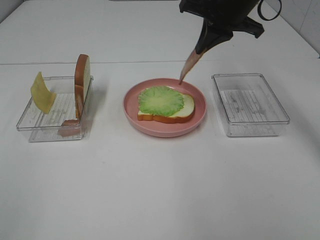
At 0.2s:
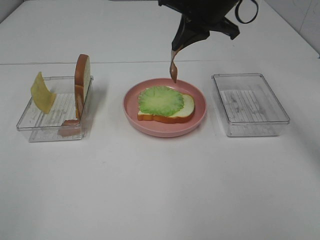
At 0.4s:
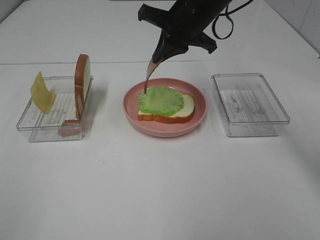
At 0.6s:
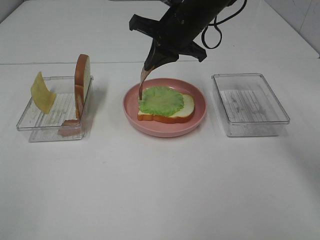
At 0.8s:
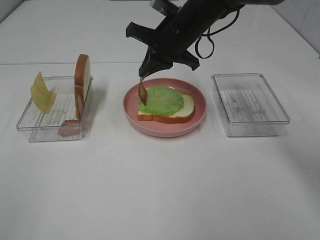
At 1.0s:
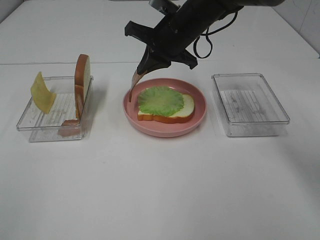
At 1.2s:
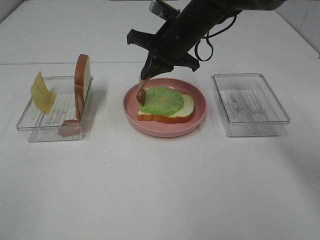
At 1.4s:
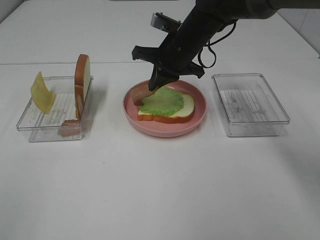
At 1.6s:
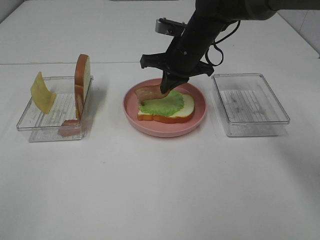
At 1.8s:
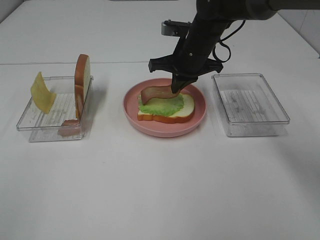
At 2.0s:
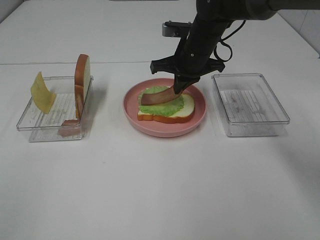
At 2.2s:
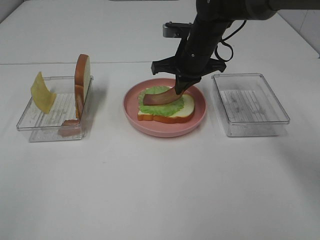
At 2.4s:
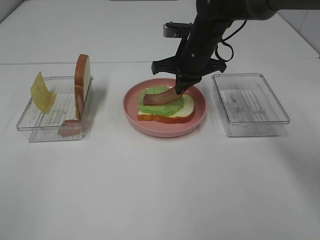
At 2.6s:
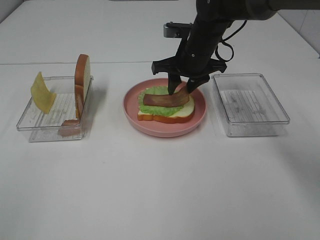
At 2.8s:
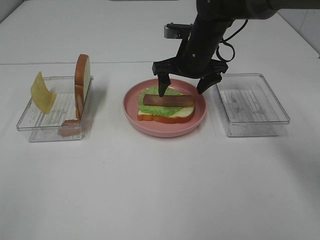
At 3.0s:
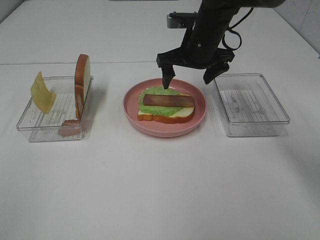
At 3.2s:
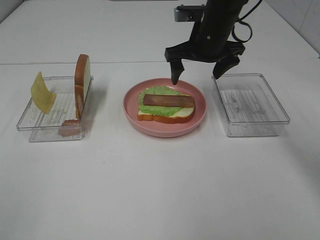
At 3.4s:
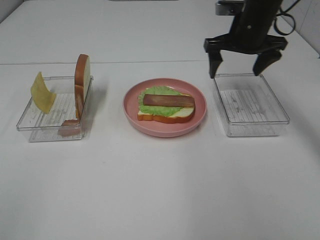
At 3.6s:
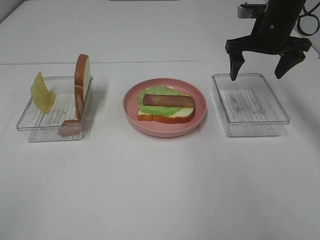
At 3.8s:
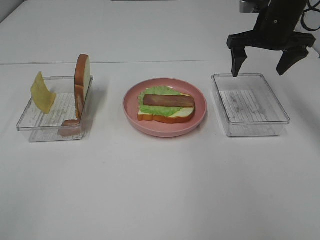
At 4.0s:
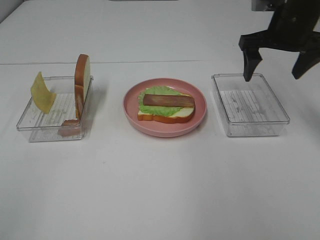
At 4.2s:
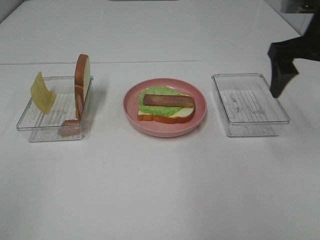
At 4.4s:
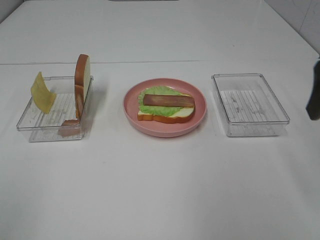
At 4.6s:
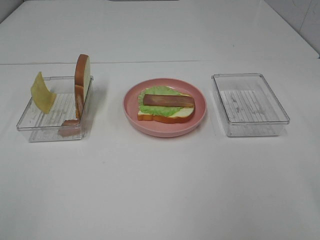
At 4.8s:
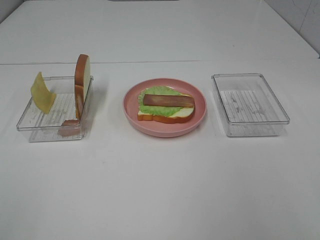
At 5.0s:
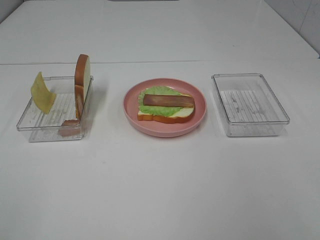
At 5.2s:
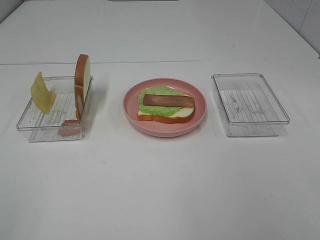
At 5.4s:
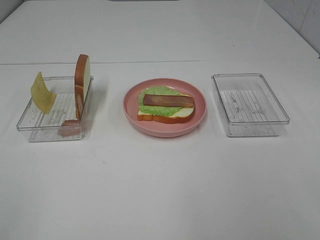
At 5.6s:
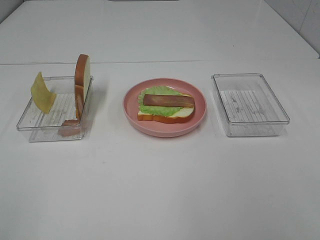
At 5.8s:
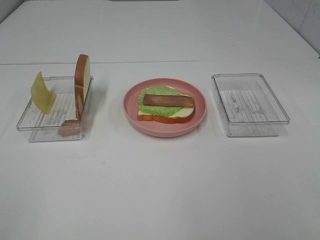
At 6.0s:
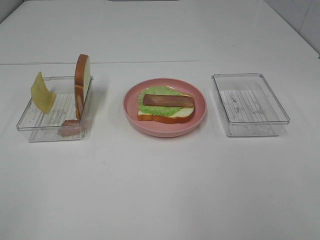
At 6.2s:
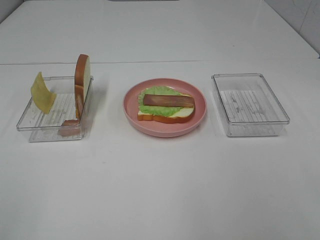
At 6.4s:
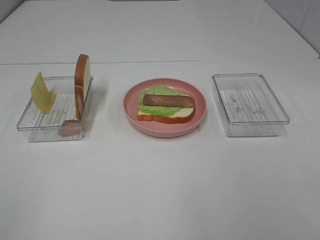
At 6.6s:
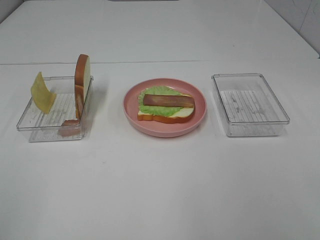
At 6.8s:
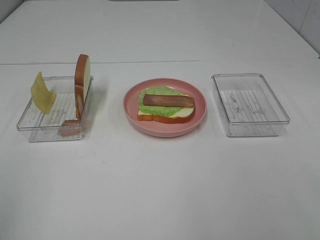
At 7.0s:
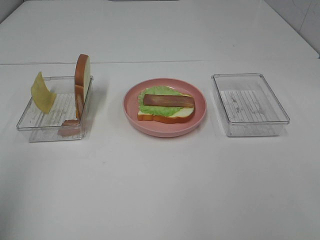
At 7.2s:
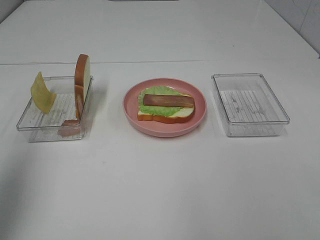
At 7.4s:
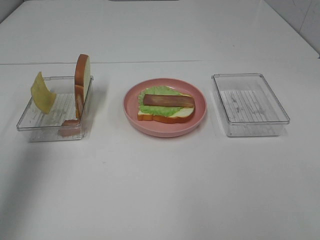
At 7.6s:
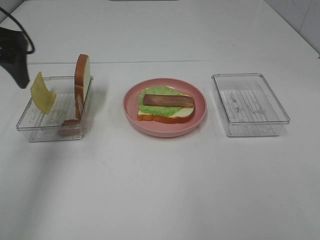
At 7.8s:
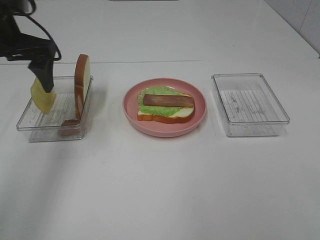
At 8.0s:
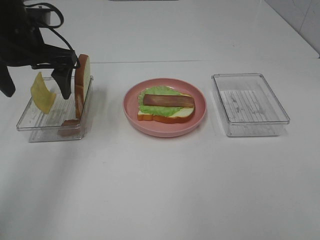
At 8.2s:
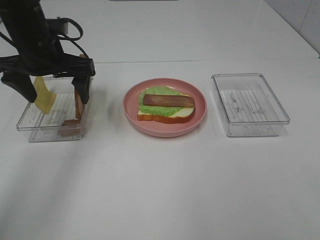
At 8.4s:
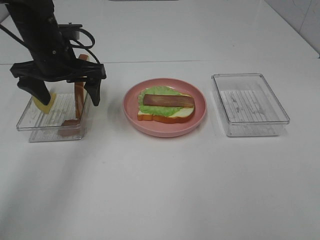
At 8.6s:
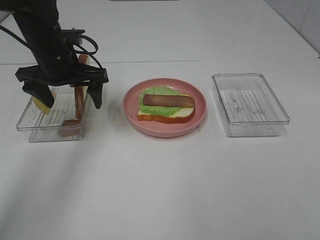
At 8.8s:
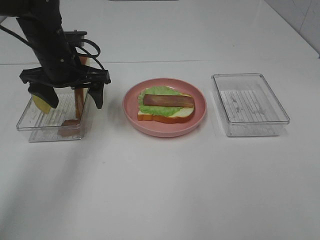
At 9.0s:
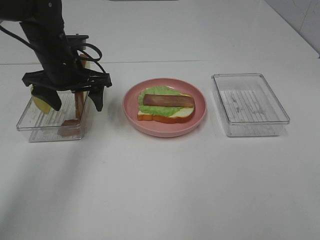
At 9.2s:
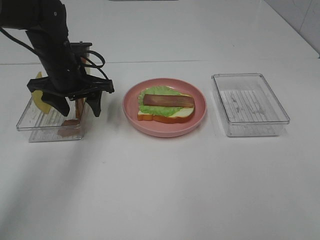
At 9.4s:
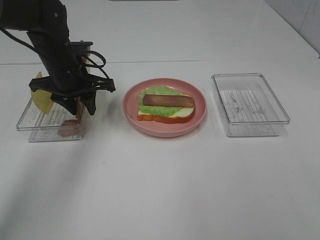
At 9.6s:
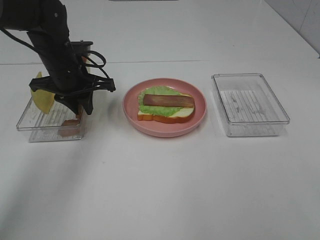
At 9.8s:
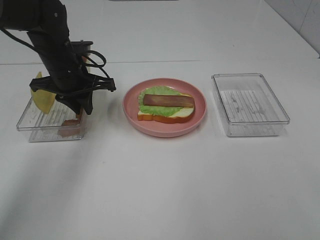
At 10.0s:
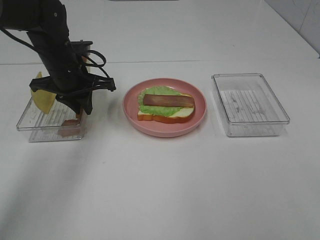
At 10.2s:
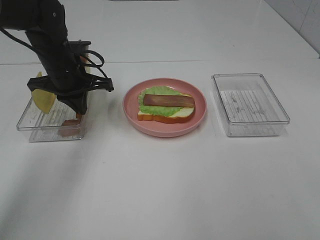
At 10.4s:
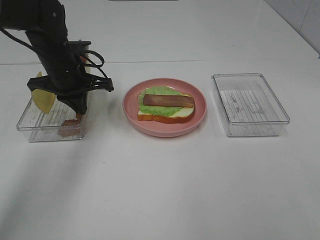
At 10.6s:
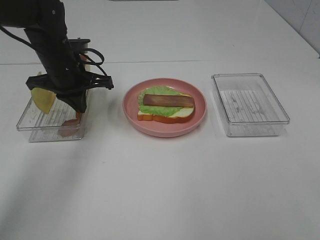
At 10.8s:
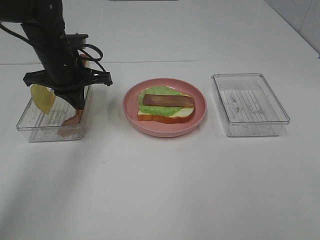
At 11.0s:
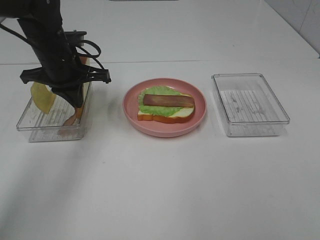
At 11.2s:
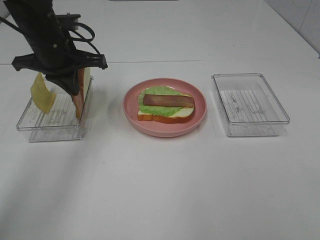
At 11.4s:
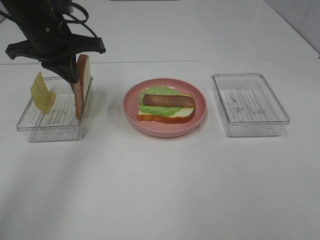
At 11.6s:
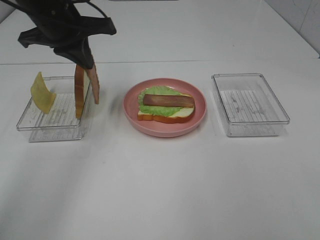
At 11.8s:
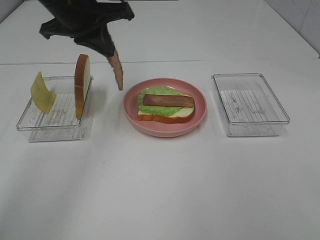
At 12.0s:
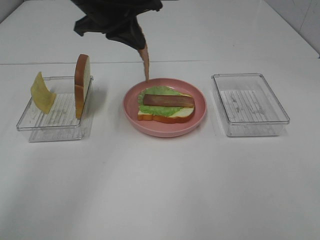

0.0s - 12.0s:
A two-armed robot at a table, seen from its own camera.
Task of the whole recording: Make sandwiches.
Step, 0.0s - 2.6s: Right hand:place bacon on lettuce slice.
Step, 2.8s - 10.8s: Left hand:grab the bacon.
0.0s - 1.6s: The right gripper shifts roughly 10 cm downward and to the left.
1.6s - 3.0s: The right gripper opens.
3.0s - 4.4s: The right gripper shifts about 30 cm backward, to the right and upward.
4.4s - 6.0s: The right gripper shifts roughly 20 cm backward.
6.0s - 7.6s: The left gripper travels forward by roughly 35 cm.
7.6s - 9.0s: The left gripper shifts roughly 15 cm downward, to the right and forward.
9.0s - 10.4s: The left gripper closes up.
10.4s - 12.0s: The left gripper shifts approximately 15 cm upward and to the right.

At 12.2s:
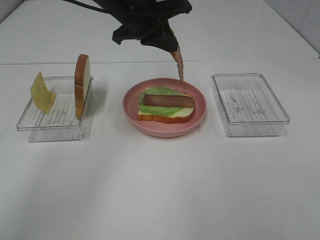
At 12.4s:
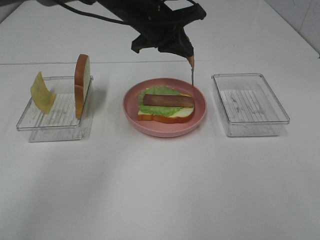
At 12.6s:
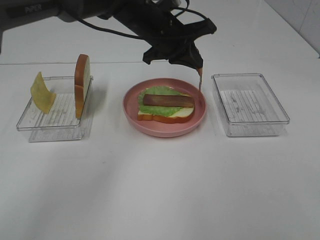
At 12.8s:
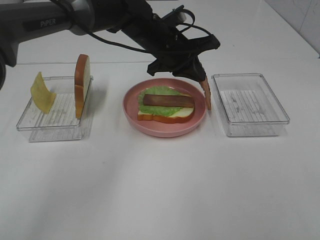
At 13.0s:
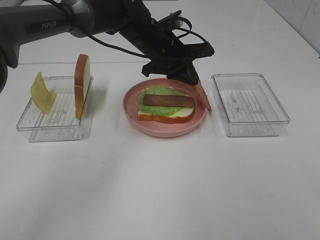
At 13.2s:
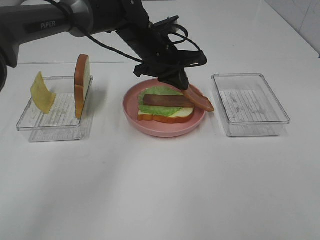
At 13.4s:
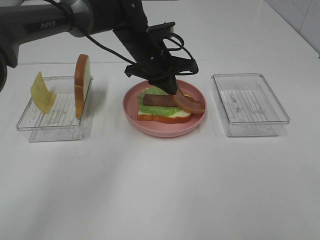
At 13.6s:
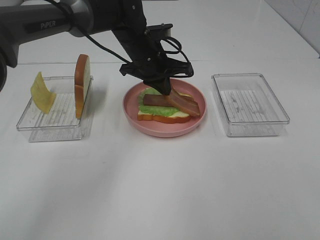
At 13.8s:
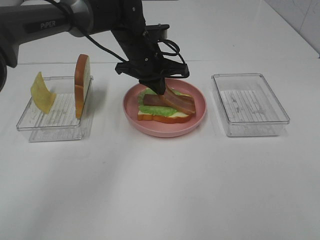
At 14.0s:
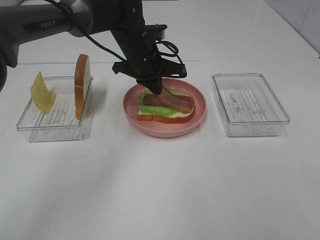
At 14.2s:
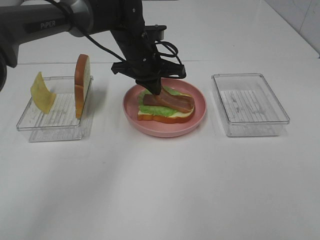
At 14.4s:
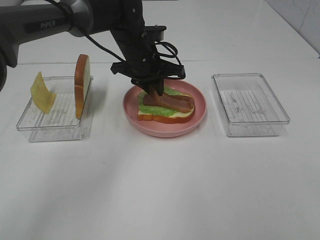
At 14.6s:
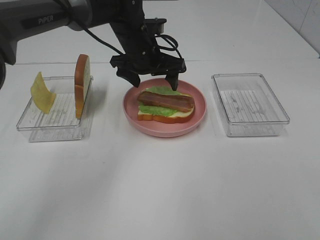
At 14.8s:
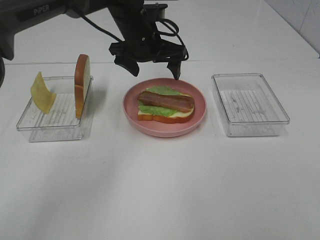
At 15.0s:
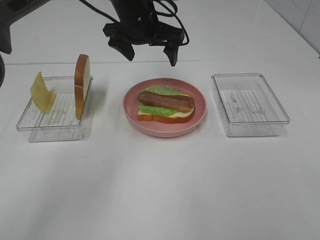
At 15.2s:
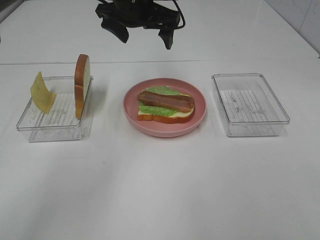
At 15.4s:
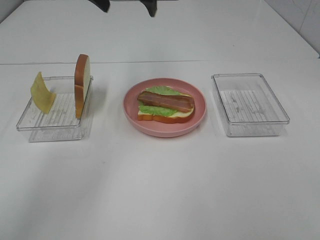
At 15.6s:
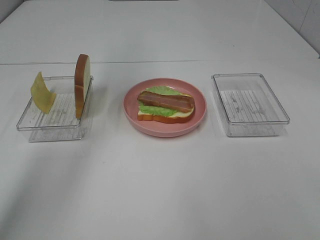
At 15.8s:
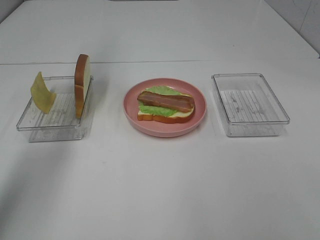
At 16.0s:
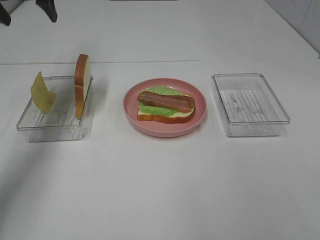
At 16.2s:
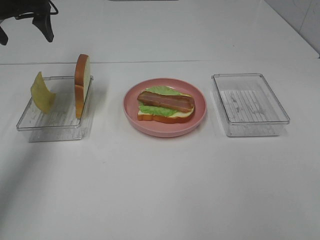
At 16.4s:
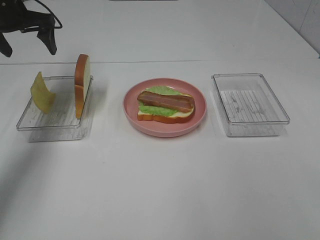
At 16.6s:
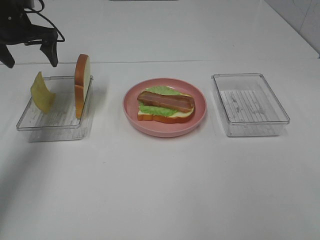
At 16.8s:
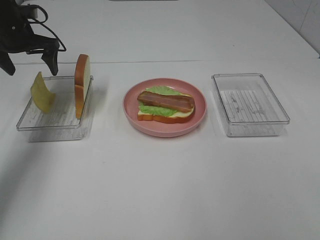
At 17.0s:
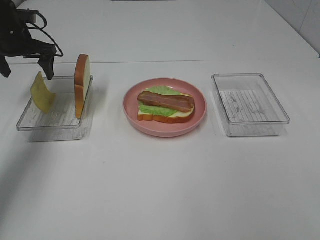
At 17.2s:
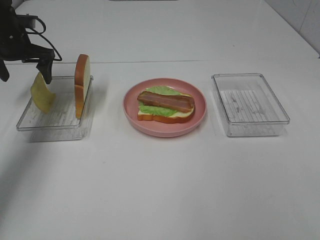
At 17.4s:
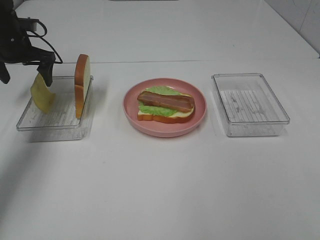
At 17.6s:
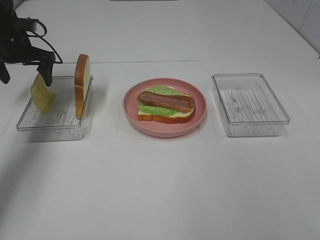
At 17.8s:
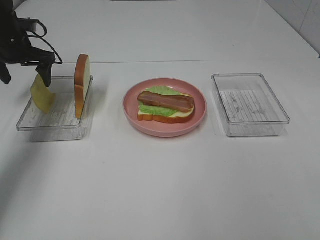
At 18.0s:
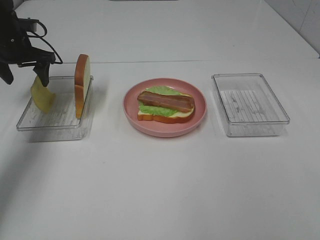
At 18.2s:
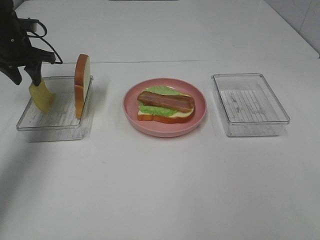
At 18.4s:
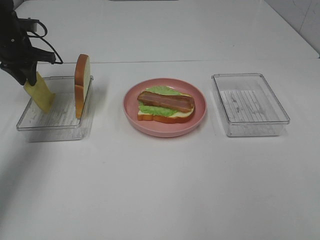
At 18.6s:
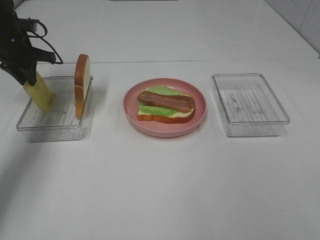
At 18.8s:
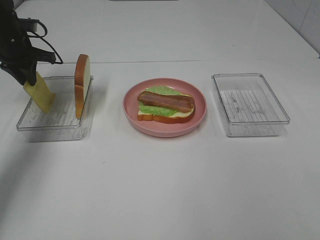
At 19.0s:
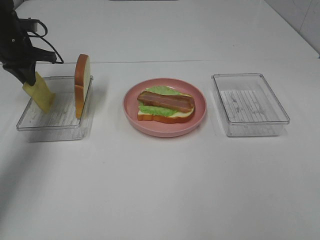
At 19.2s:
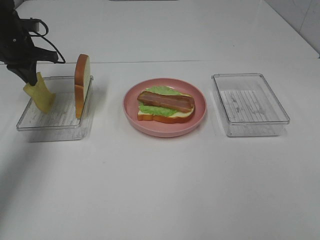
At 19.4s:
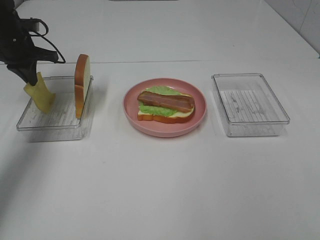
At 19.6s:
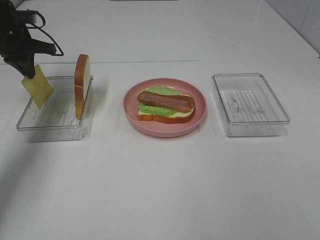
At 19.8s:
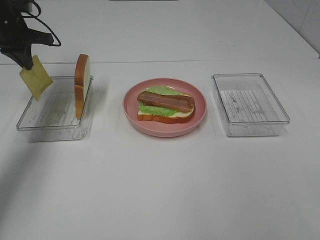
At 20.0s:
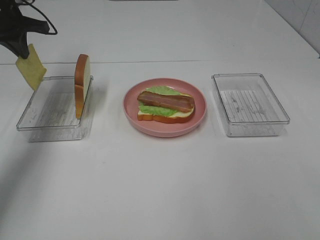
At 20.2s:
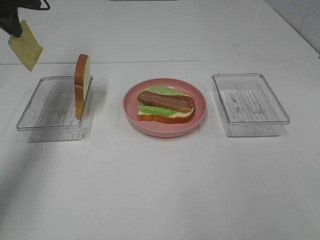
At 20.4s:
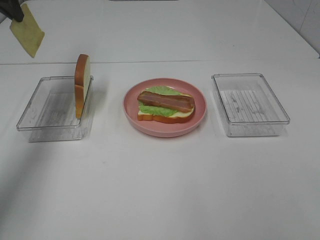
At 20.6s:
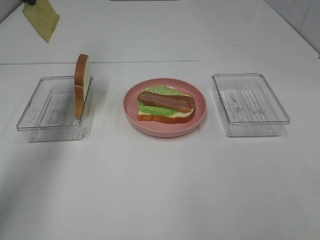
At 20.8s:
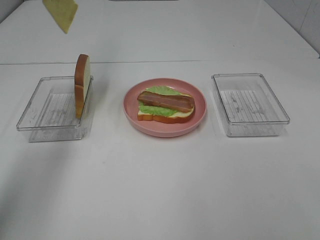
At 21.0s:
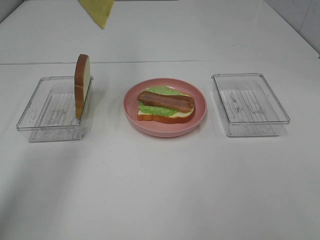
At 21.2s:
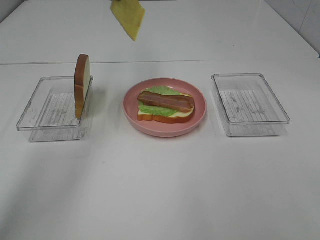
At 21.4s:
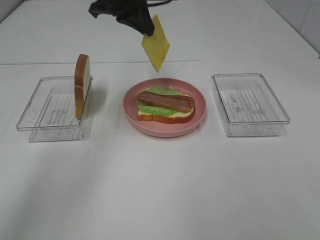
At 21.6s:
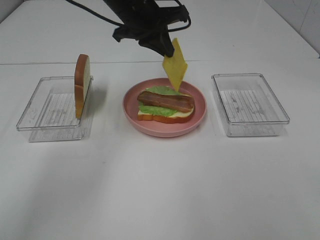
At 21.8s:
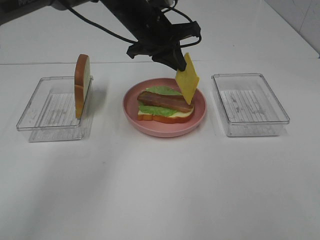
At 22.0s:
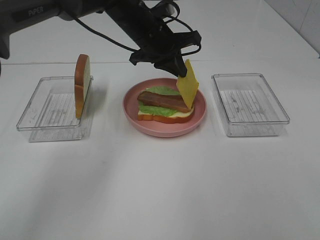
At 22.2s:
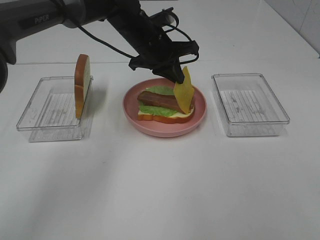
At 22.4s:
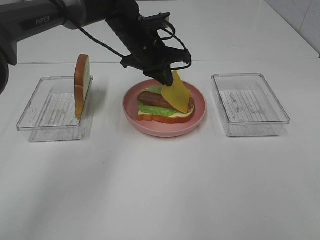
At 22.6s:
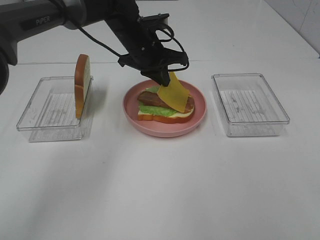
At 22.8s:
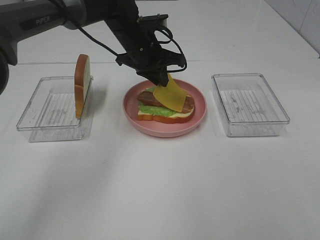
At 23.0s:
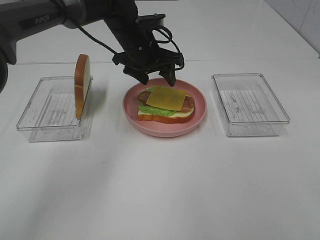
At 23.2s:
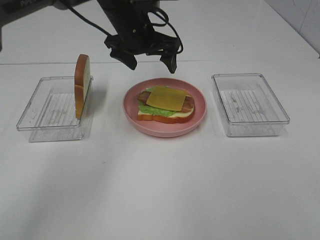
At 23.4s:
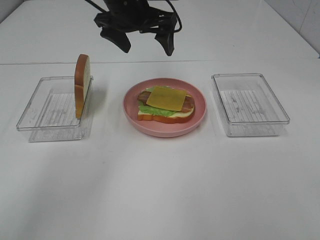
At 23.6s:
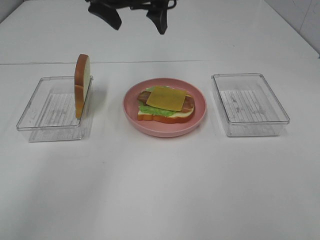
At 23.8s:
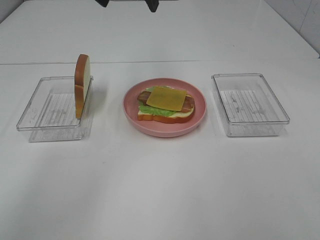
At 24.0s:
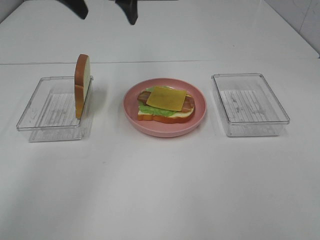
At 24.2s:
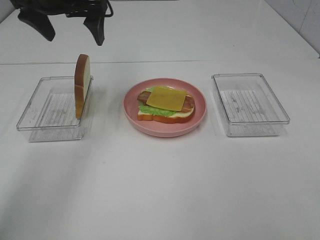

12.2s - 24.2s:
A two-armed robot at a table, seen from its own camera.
Task of the whole recording: Make sandwiches.
Step, 12.2s - 14.6s: Left hand:place bacon on bacon.
Step, 14.8s - 19.6s: Left hand:grab the cheese slice.
Step, 19.8s - 23.0s: Left hand:place the cheese slice on top of the bacon.
12.2s - 13.8s: The left gripper is displaced downward by roughly 10 cm.
13.8s - 15.2s: The left gripper heads upward, covering roughly 10 cm, and opens.
15.2s - 16.6s: The left gripper moves to the left, about 25 cm.
16.6s - 18.2s: The left gripper closes.
18.2s - 19.8s: The left gripper closes up.
19.8s - 21.2s: The left gripper moves to the right and upward, approximately 20 cm.
21.2s - 22.6s: The left gripper travels downward and to the right by approximately 20 cm.
22.6s - 24.2s: The left gripper shifts approximately 20 cm to the left and upward, and opens its fingers.
